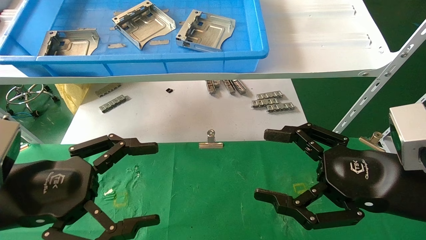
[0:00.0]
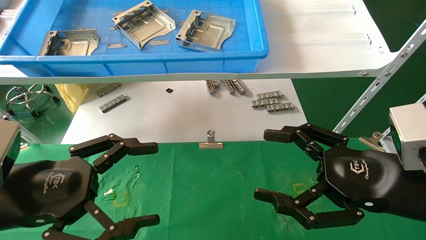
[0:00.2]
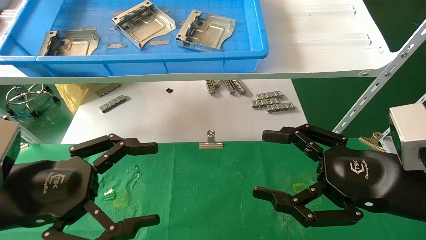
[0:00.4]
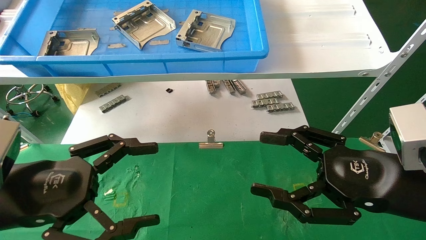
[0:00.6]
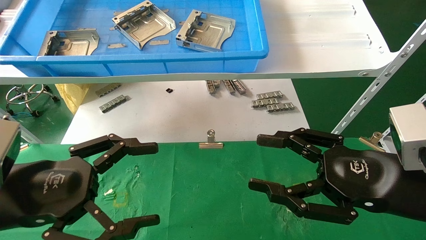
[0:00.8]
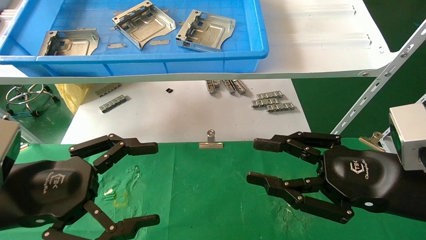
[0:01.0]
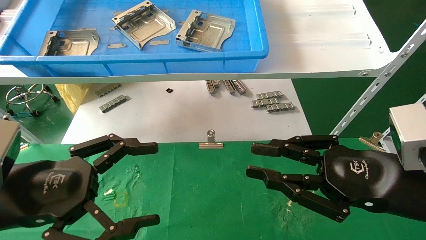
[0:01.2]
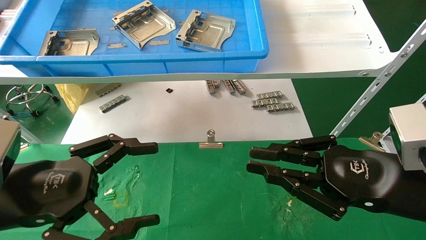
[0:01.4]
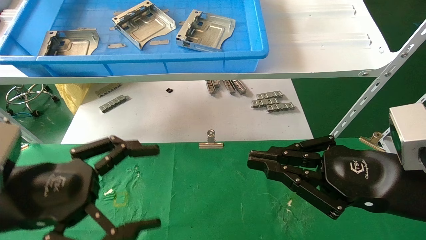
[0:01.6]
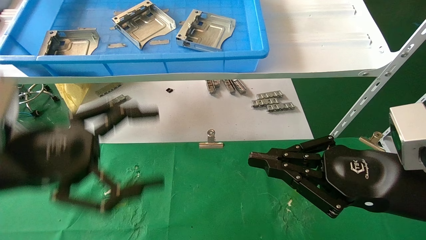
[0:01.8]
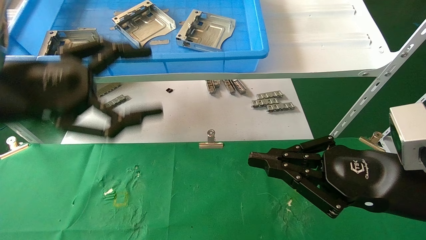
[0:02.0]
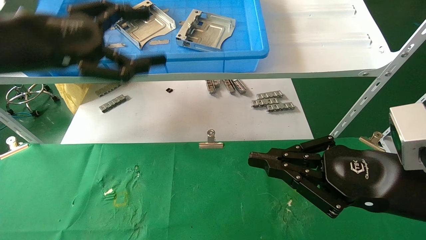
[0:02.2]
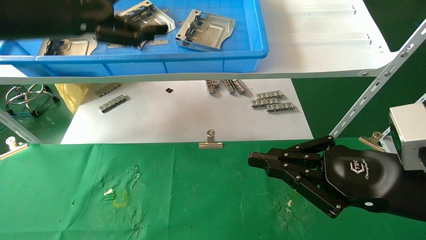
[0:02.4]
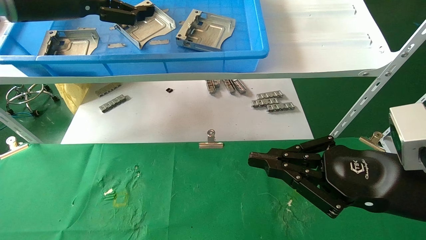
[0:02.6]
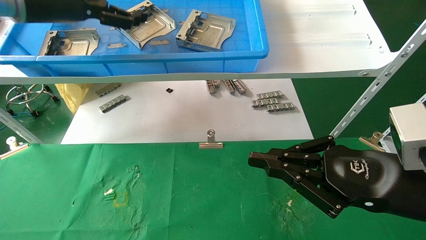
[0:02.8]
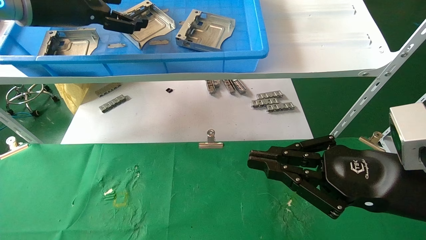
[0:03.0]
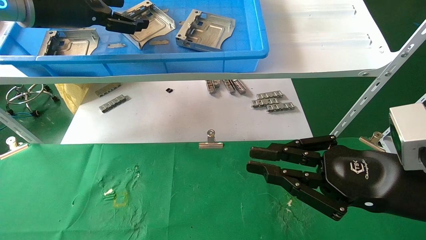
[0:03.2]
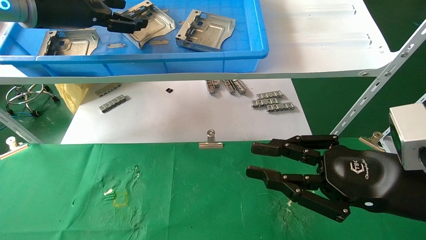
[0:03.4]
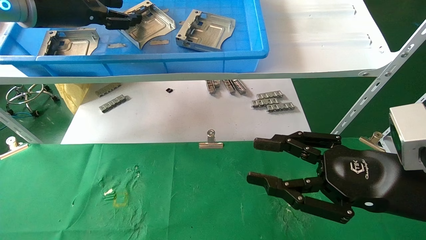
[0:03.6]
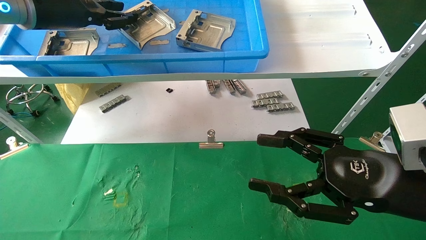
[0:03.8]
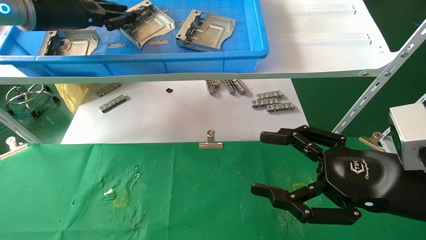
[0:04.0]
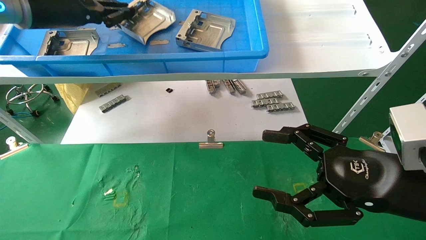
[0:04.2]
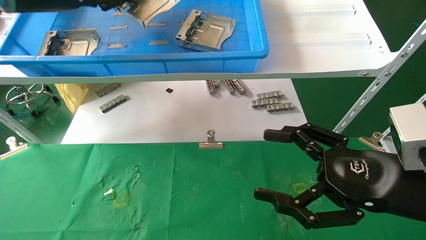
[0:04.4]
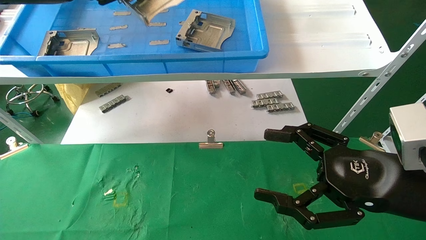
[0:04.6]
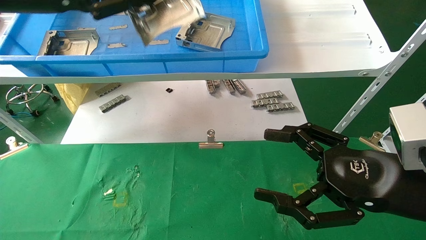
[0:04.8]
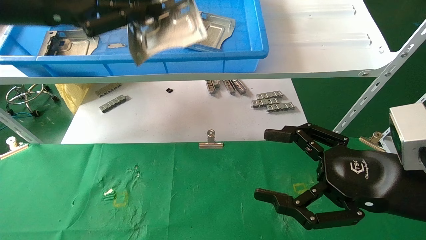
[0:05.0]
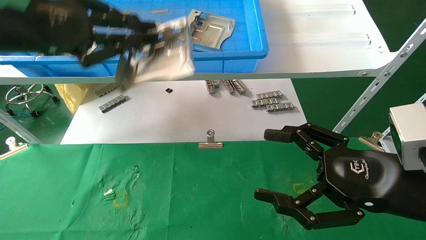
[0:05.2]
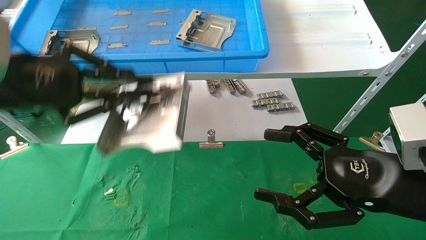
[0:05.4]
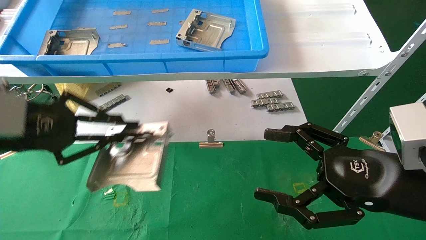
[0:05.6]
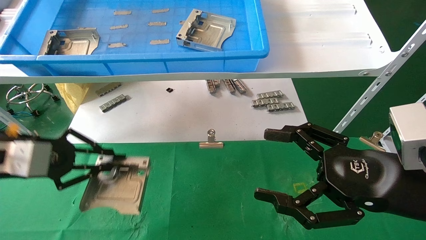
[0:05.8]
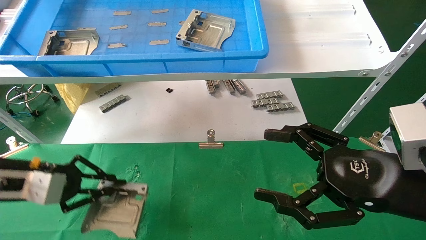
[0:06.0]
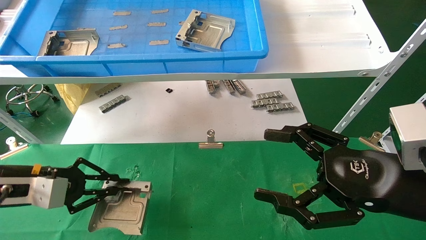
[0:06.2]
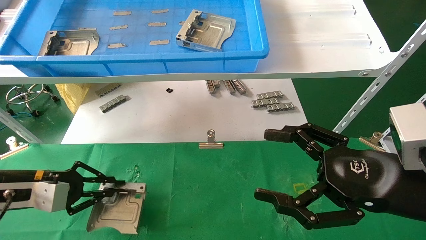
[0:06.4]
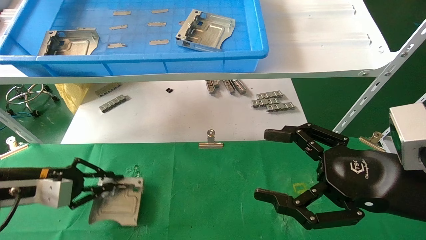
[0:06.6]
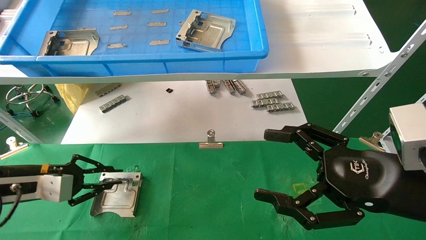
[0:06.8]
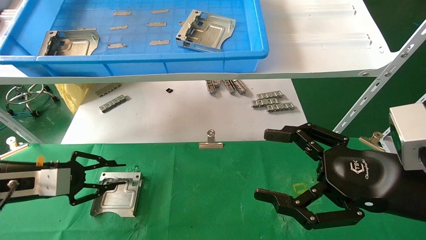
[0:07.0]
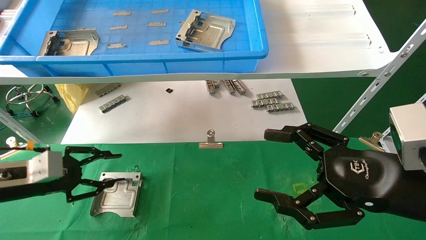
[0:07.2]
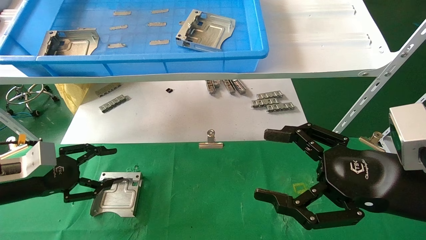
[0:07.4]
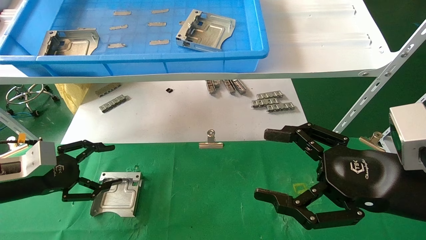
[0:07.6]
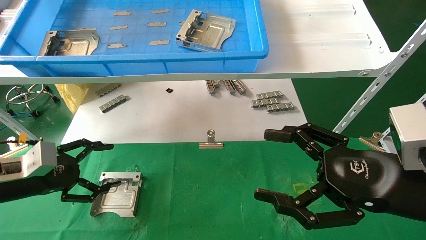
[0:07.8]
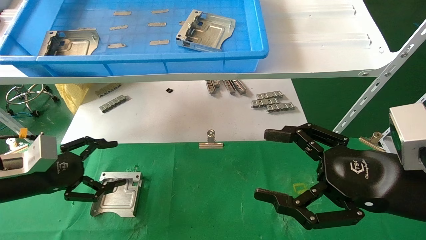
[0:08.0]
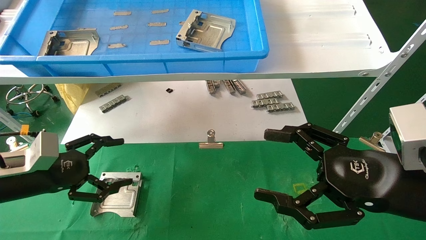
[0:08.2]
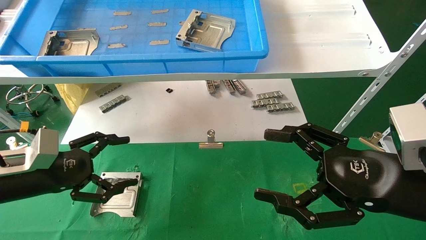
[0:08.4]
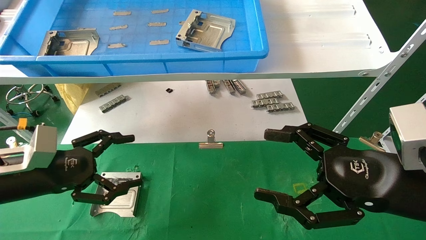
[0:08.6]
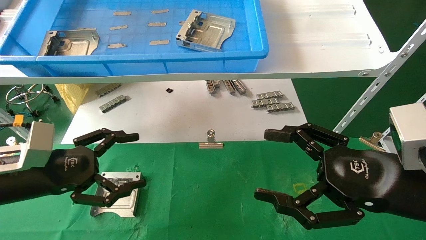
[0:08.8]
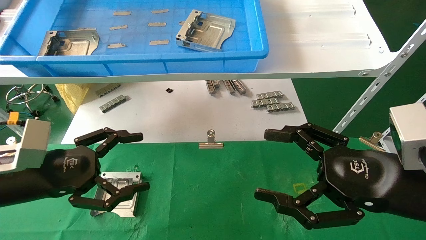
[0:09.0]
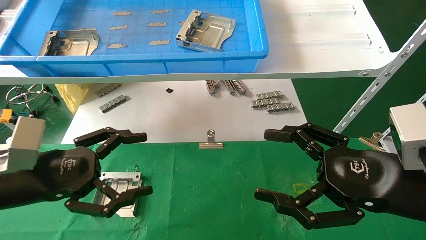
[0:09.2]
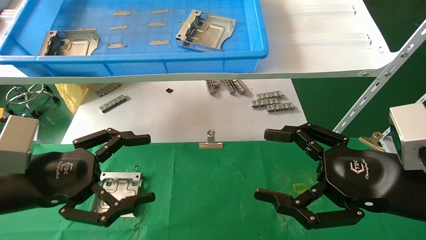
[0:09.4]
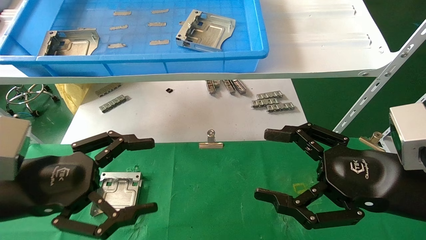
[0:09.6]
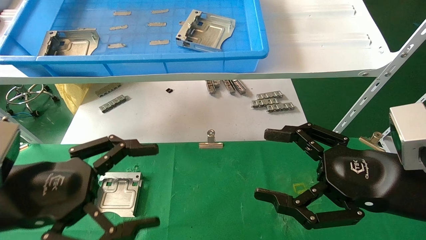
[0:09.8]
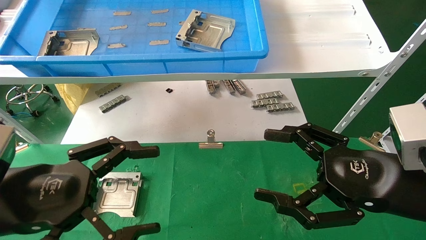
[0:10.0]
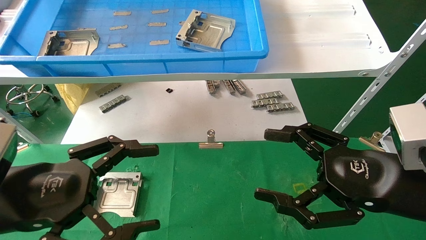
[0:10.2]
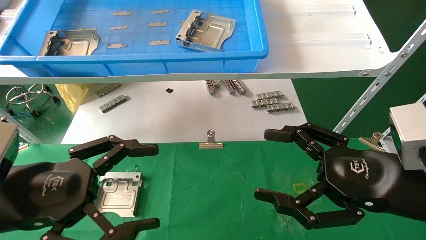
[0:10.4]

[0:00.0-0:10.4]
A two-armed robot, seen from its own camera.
Task of the whole recording: use the mechanical arm to pick up the parts and place them on the table.
Step, 0:02.0 to 0:04.0: Pick up the hard drive bracket from the feeding area.
Step, 0:04.2 to 0:07.2: Place the hard drive bracket into the box.
0:00.0 to 0:01.4: The right gripper closes.
0:01.4 to 0:03.0: The left gripper is displaced upward and forward by some 30 cm.
0:03.0 to 0:04.4: The left gripper closes its fingers, while the right gripper opens up.
0:04.4 to 0:06.0: The left gripper is displaced downward by some 30 cm.
0:06.0 to 0:07.4: The left gripper shifts by roughly 5 cm, and opens its fingers.
0:07.4 to 0:09.0: The left gripper heads to the right and backward, covering roughly 10 cm, and opens its fingers.
0:09.0 to 0:10.4: The left gripper heads backward, covering about 5 cm.

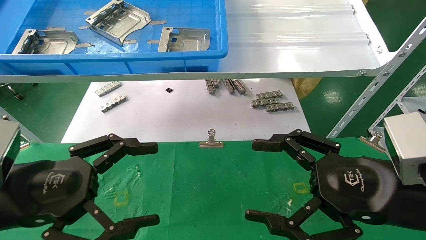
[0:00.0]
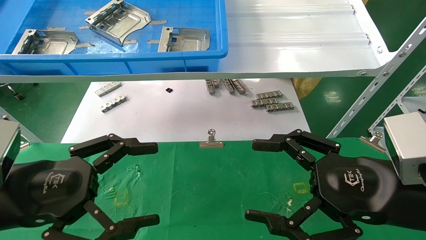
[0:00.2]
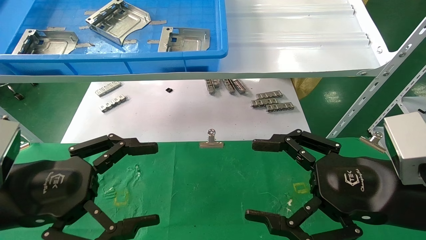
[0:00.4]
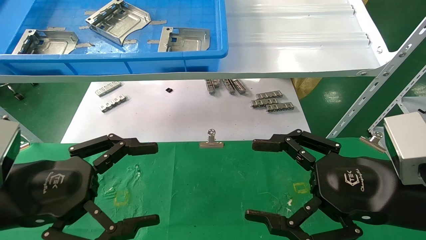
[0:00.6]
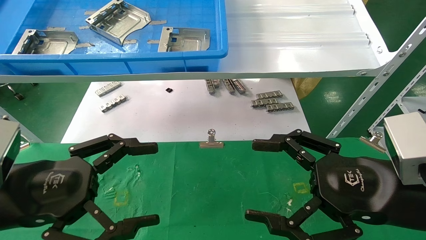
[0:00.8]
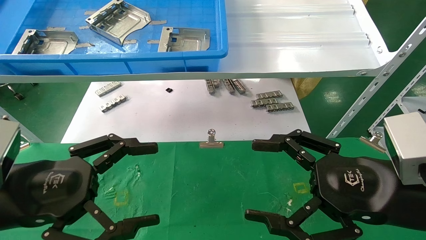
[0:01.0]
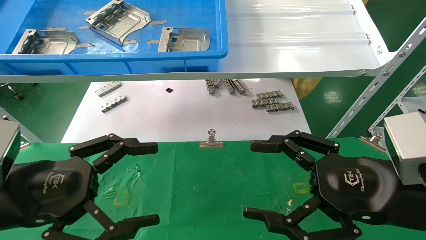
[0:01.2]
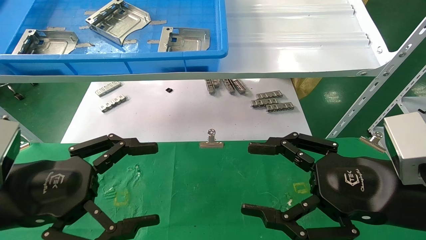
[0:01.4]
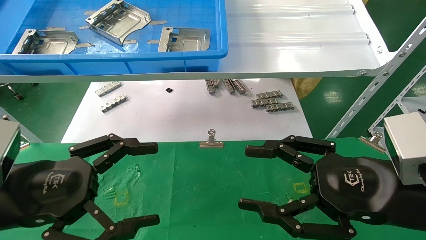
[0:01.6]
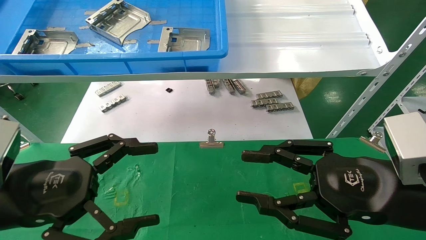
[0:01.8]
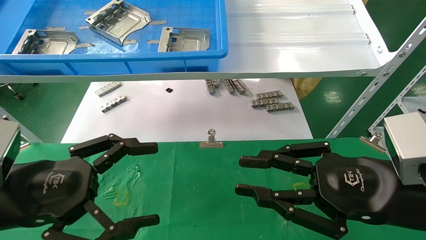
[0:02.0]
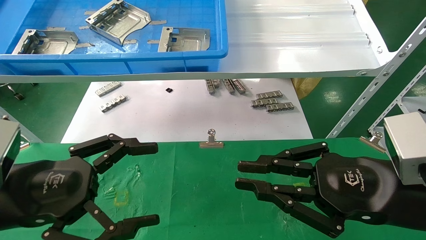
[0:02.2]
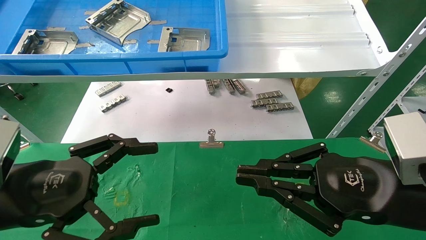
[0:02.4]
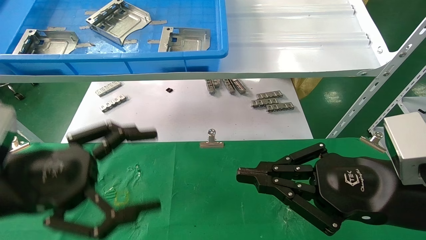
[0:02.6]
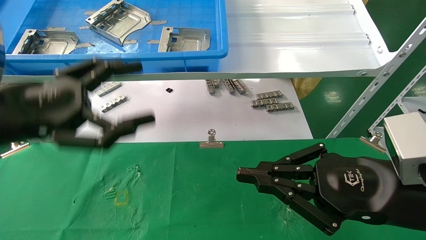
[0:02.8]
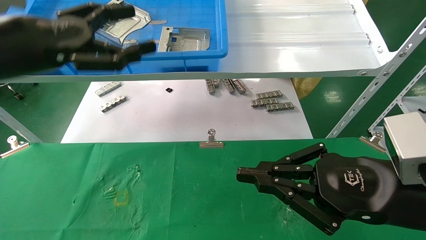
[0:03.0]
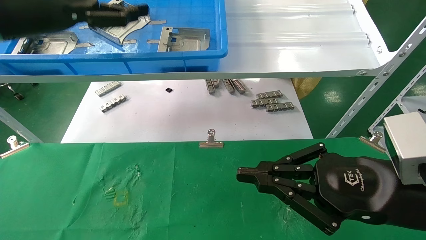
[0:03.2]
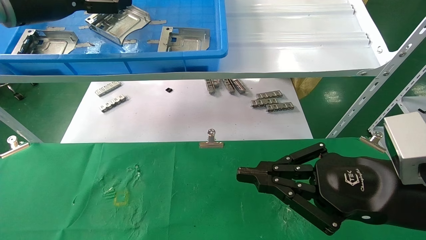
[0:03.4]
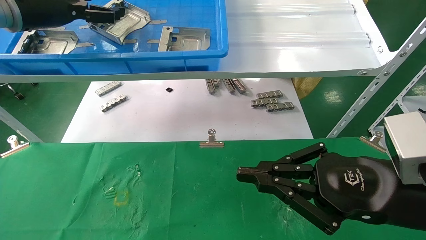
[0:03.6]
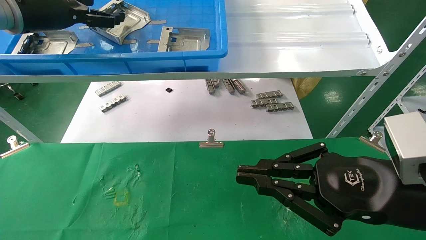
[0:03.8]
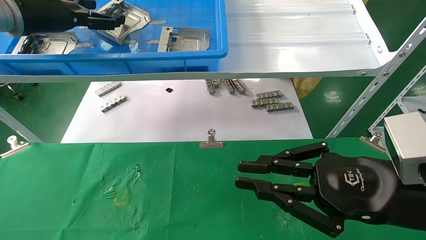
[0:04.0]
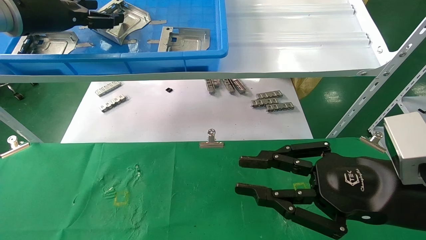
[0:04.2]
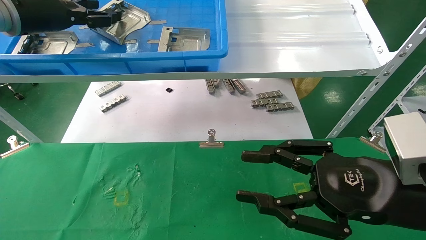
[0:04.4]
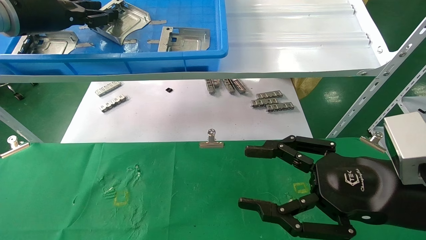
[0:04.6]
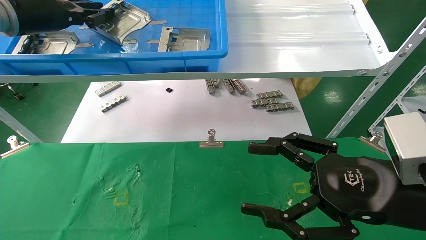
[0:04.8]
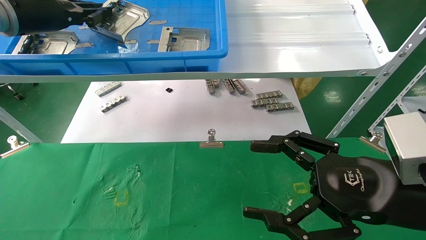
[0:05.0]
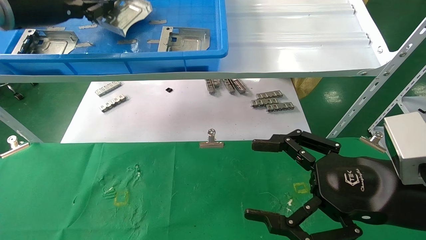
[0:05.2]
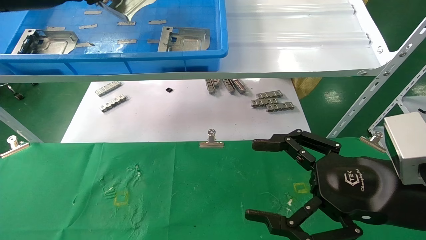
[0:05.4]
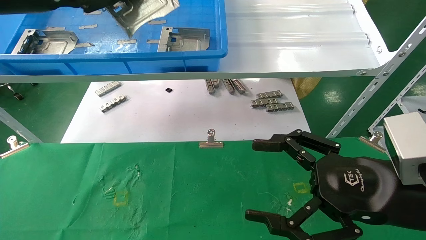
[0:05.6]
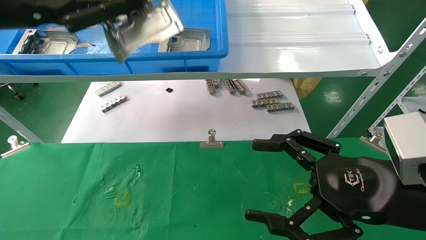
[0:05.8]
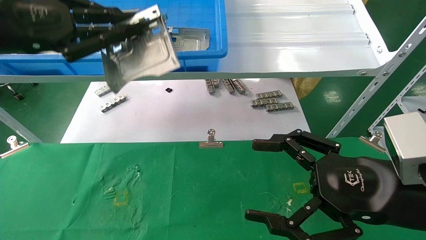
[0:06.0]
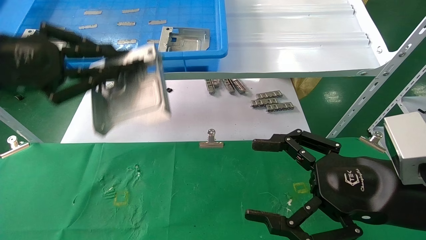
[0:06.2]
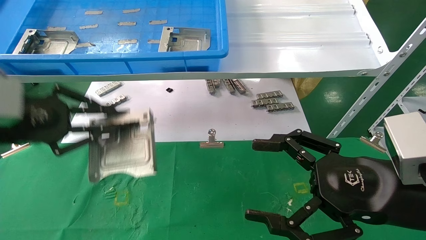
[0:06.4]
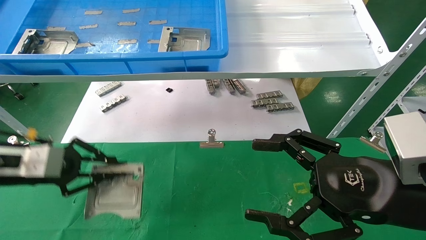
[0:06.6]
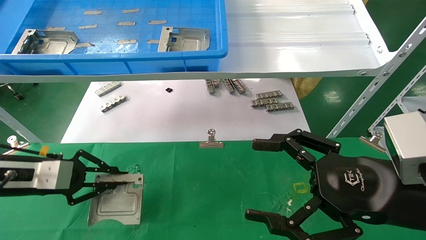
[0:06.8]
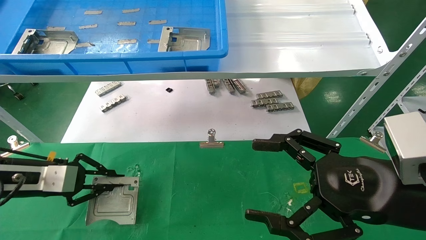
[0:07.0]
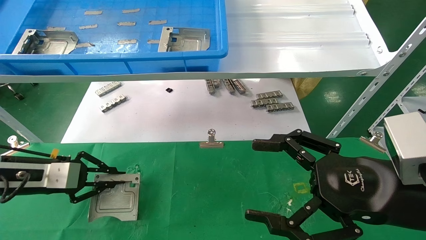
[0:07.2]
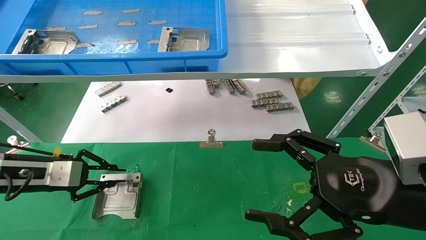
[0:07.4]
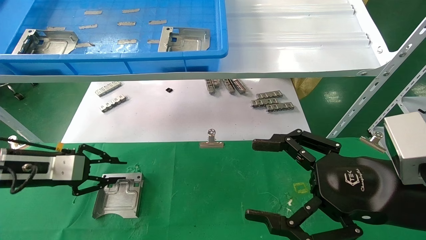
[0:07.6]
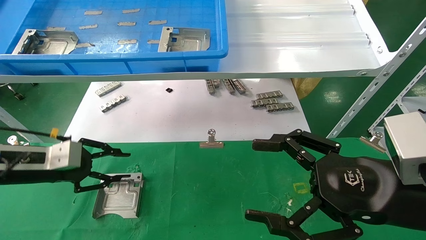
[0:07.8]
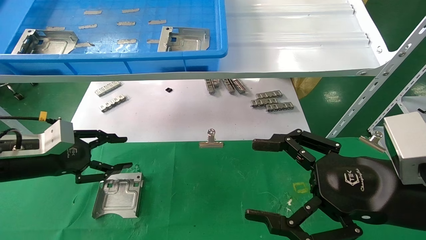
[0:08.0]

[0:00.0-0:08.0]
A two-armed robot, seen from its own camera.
Task of the whole recording: use the mechanical arm to pick up the parts and place them on the table.
Step, 0:03.0 to 0:05.0: Pick up the hard drive bracket from the feeding area.
Step, 0:05.2 to 0:07.6: Place the hard drive bracket into the box.
0:00.0 to 0:01.6: Both grippers stay about where they are.
0:01.6 to 0:03.2: The left gripper travels upward and forward by approximately 25 cm, while the right gripper closes up.
0:03.2 to 0:04.8: The left gripper moves forward, some 5 cm, and closes; the right gripper opens.
0:04.8 to 0:06.4: The left gripper heads downward and backward, covering roughly 20 cm.
0:06.4 to 0:08.0: The left gripper goes approximately 10 cm downward and forward, and opens up.
